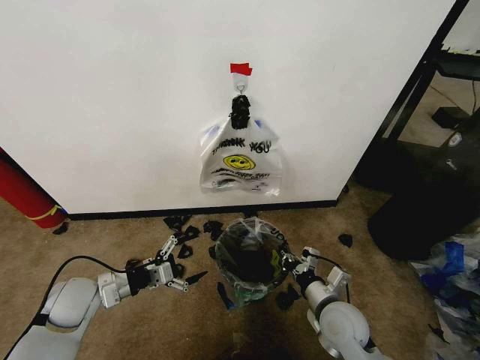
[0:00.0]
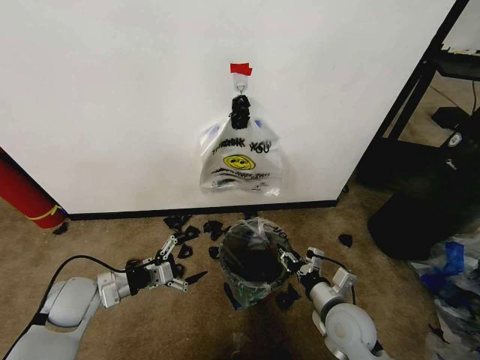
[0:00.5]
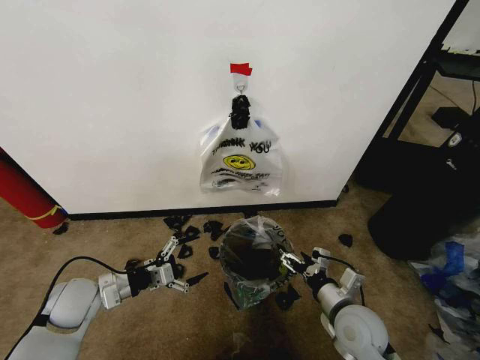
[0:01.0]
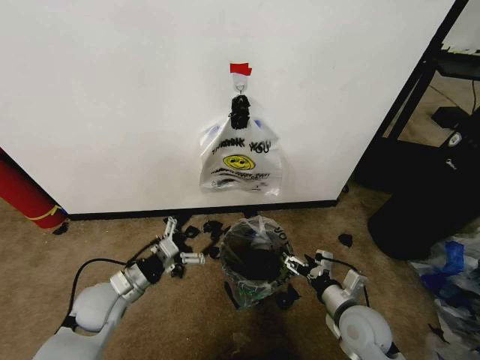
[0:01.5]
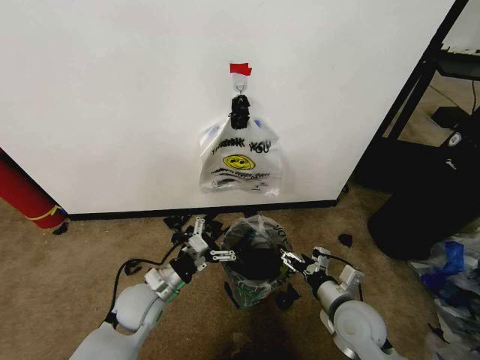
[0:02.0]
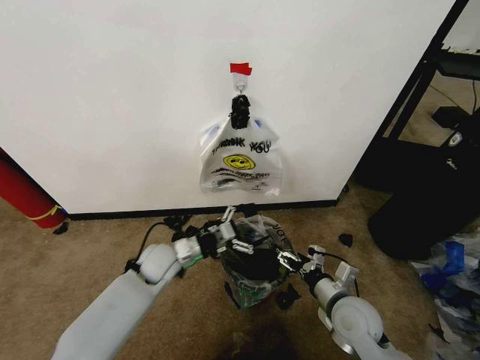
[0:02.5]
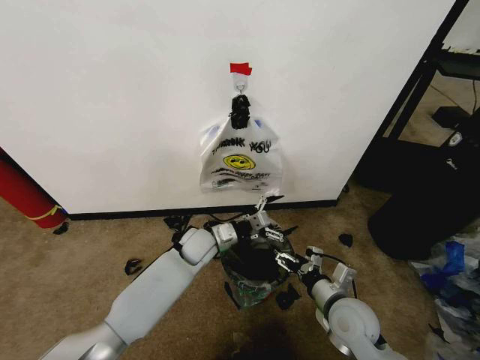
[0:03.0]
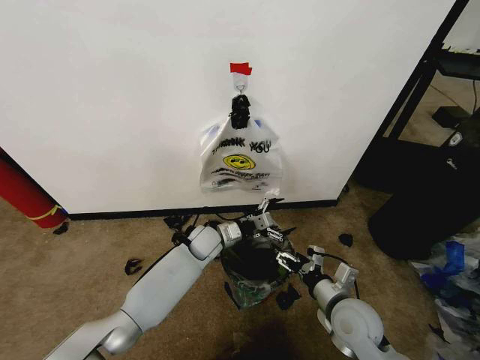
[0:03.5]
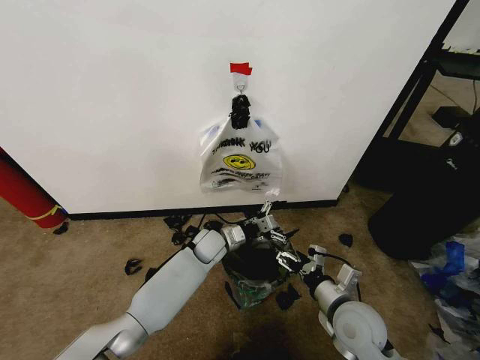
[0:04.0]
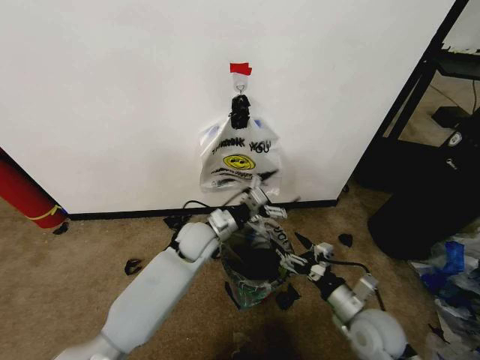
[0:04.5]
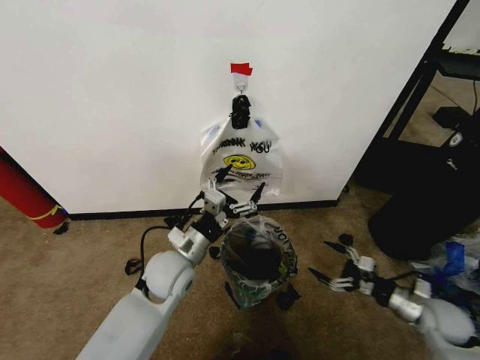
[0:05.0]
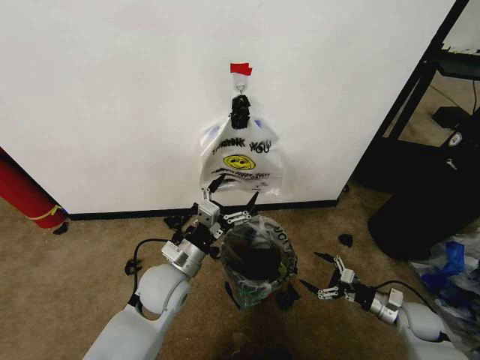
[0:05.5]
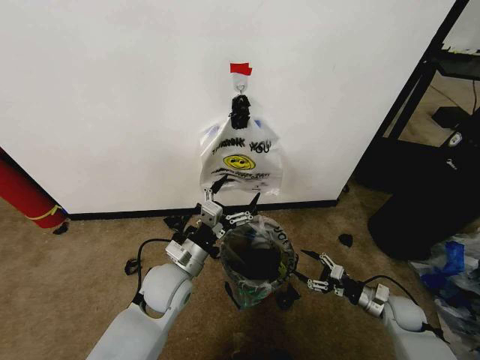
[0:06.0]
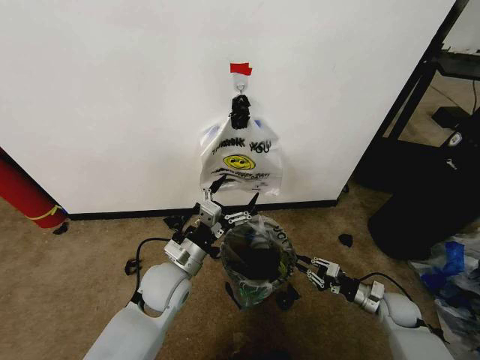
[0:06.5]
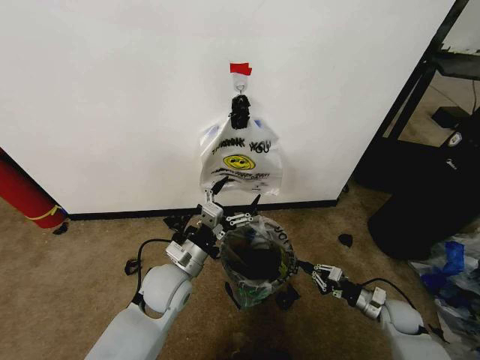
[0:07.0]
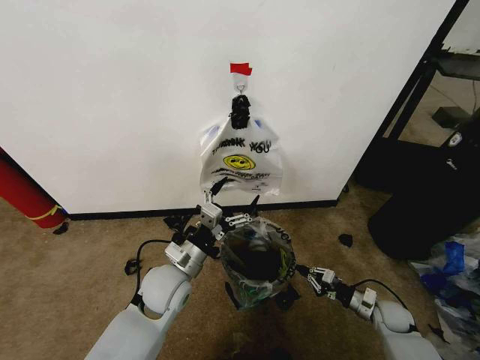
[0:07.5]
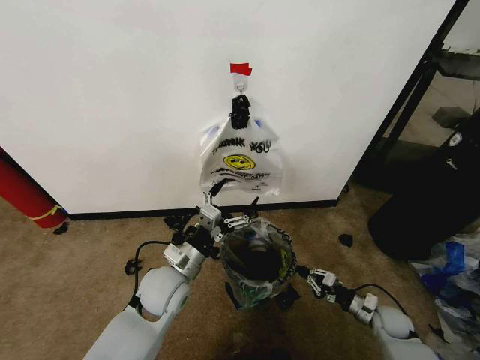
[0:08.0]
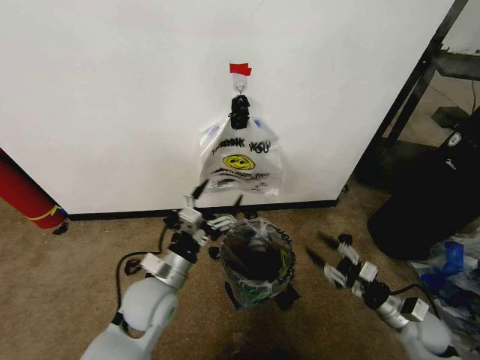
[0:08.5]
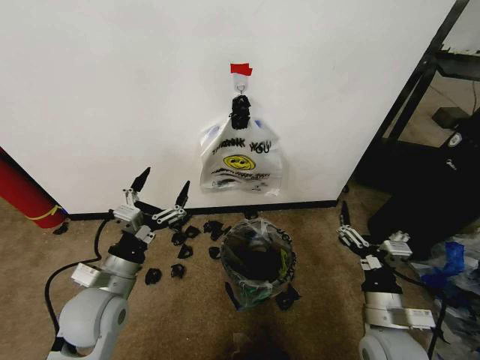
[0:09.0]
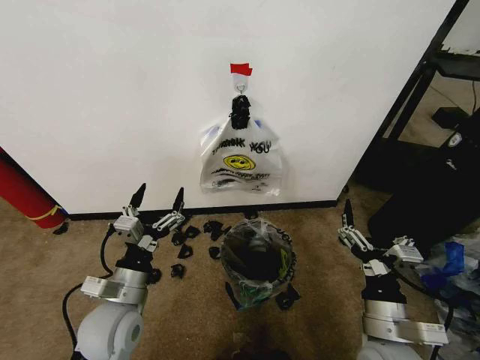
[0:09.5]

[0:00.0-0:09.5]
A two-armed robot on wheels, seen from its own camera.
Task of the whole recording: Pick up the garbage bag from the wall and place it over the trash bin.
0:00.0 to 0:02.0: The left gripper travels to the right by approximately 15 cm. Meanwhile the right gripper opens.
0:02.0 to 0:04.0: The left gripper is displaced forward and to the right by approximately 20 cm.
0:04.0 to 0:05.5: The left gripper goes some 20 cm backward, upward and to the left. The right gripper moves to the right and downward, about 25 cm.
0:05.5 to 0:07.5: The right gripper is displaced downward by approximately 5 cm, and closes.
0:07.5 to 0:09.5: The left gripper is displaced backward and to the left by some 10 cm; the right gripper shifts roughly 30 cm upward, to the left and backward, and opens its fingers.
